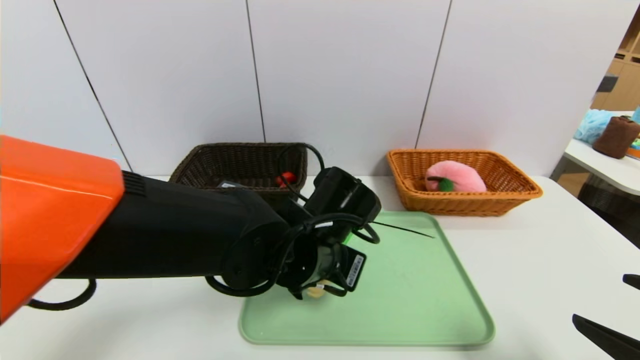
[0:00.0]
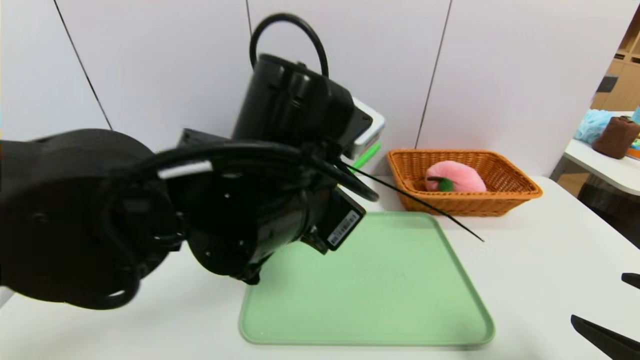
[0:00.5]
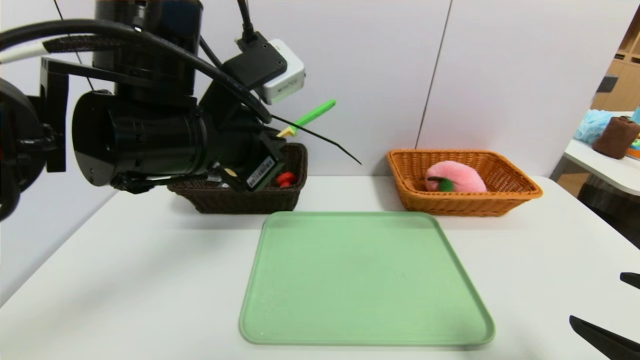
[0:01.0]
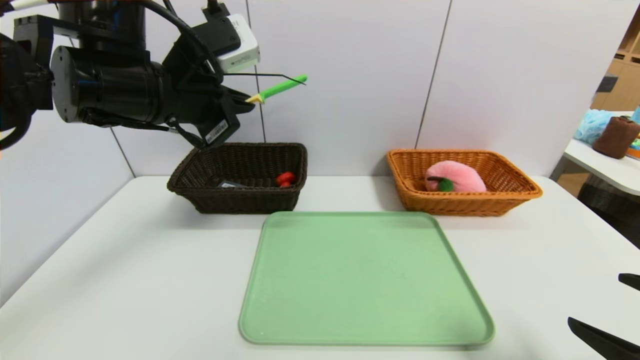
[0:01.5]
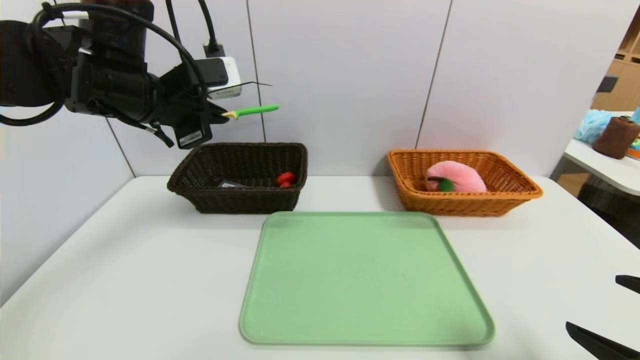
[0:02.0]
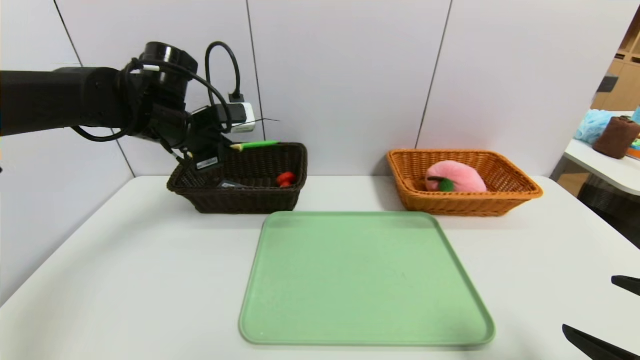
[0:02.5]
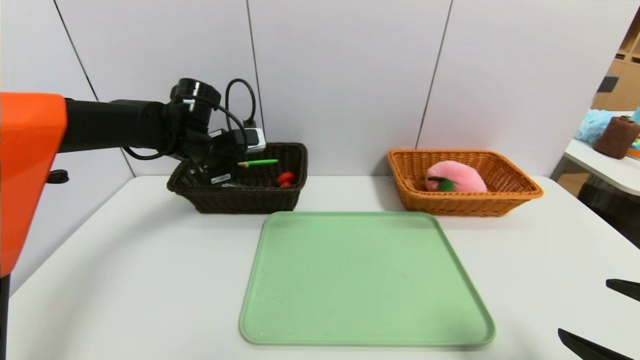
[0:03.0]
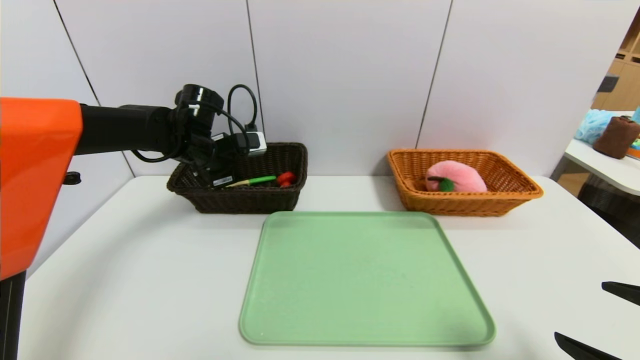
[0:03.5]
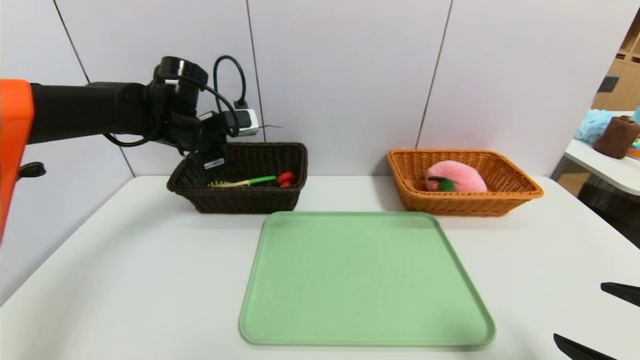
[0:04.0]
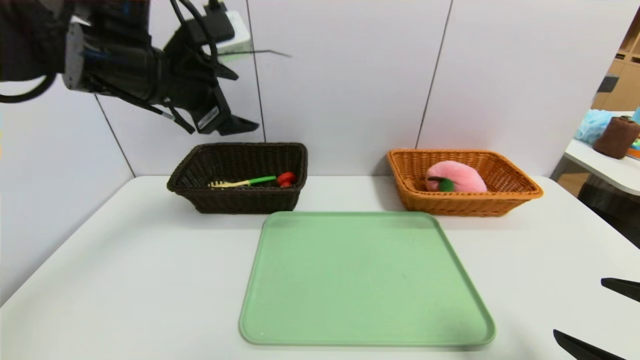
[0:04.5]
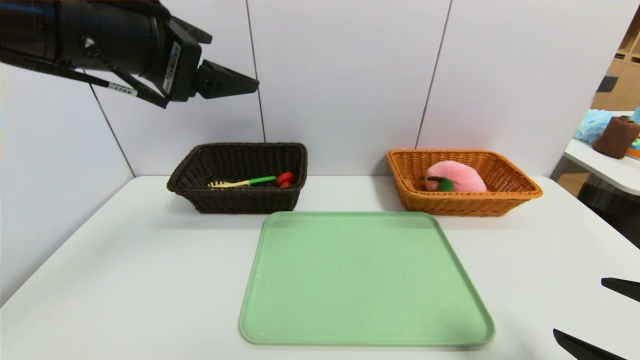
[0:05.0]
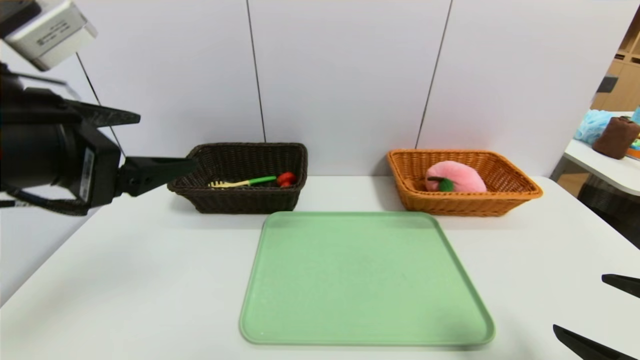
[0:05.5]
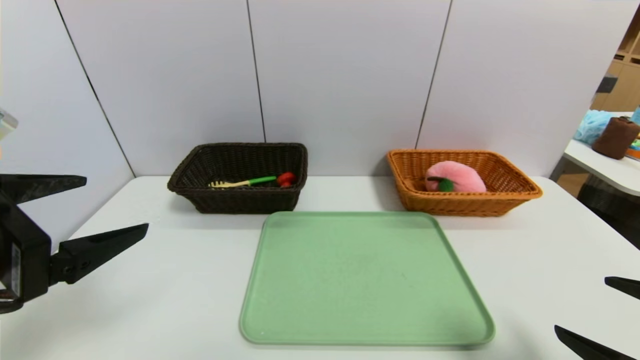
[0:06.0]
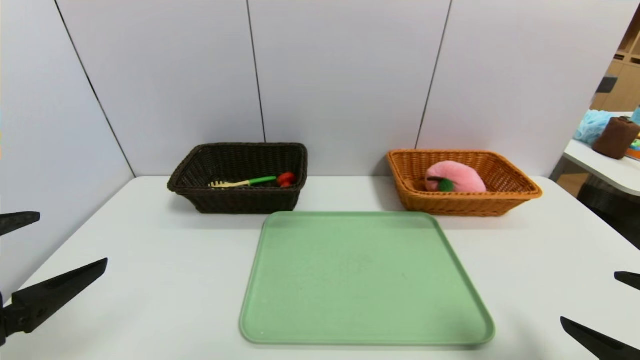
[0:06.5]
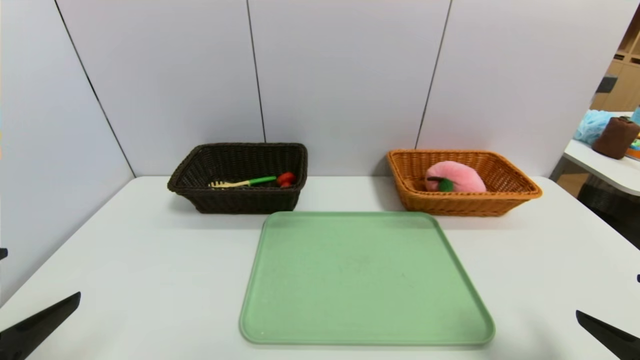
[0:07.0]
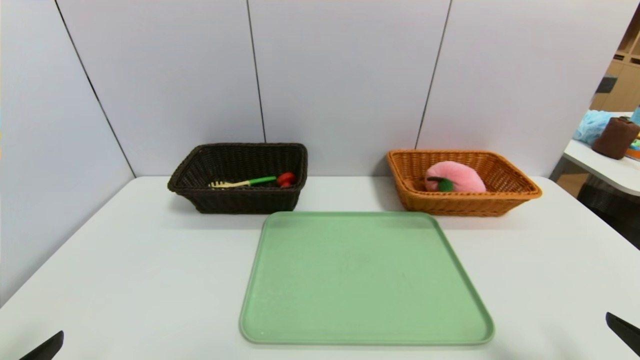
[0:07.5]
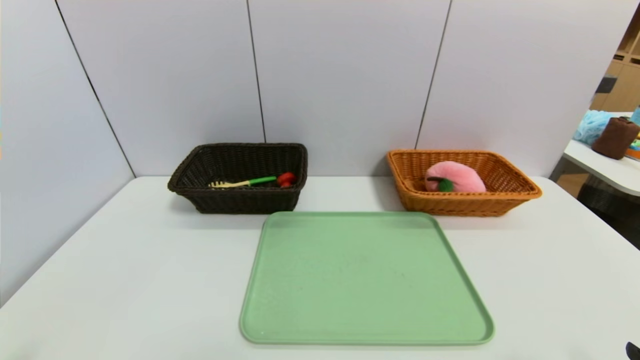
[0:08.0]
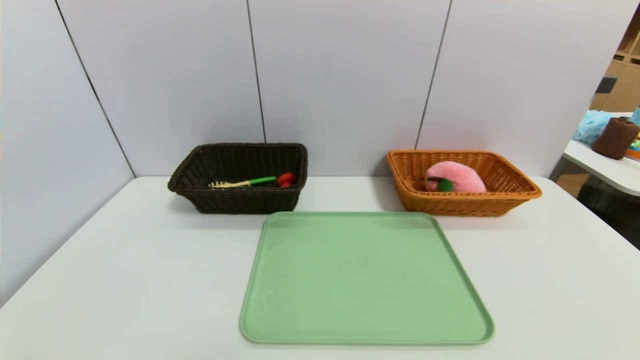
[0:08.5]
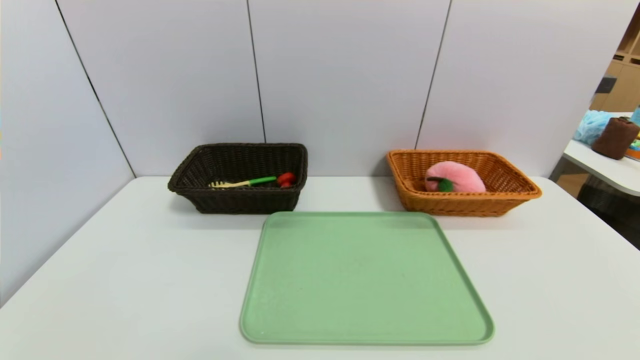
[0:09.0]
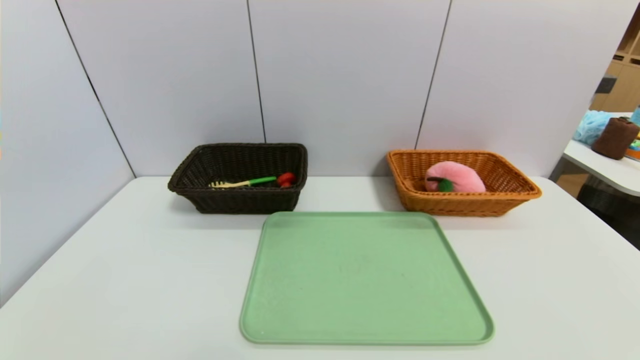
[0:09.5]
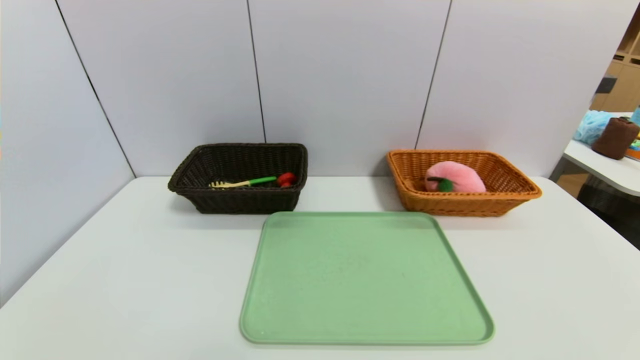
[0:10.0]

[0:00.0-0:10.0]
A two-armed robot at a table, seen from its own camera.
Task of the whole recording: place the food in the right basket with the right gripper, and place the non food items in the left basket with the left gripper.
Step, 0:00.0 to 0:04.0: Grasp the back scratcher and put it in the left basket.
0:00.0 to 0:02.0: The left gripper shifts approximately 25 cm to the left, upward and forward.
0:02.0 to 0:04.0: The left gripper heads forward and downward, covering approximately 10 cm, and opens up.
0:04.0 to 0:06.0: The left gripper travels backward by roughly 30 cm.
0:06.0 to 0:08.0: The left gripper goes approximately 15 cm downward and backward; the right gripper heads backward, covering roughly 5 cm.

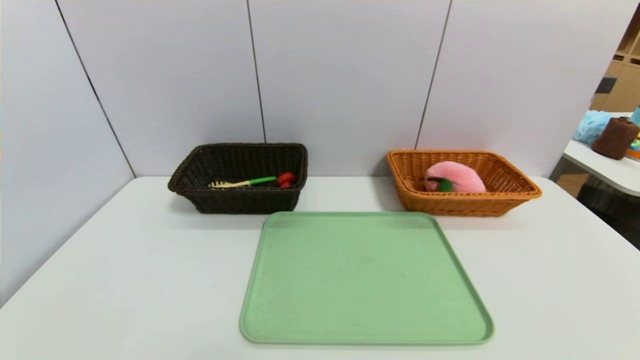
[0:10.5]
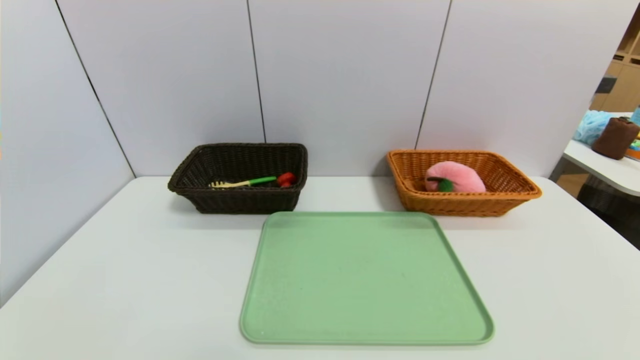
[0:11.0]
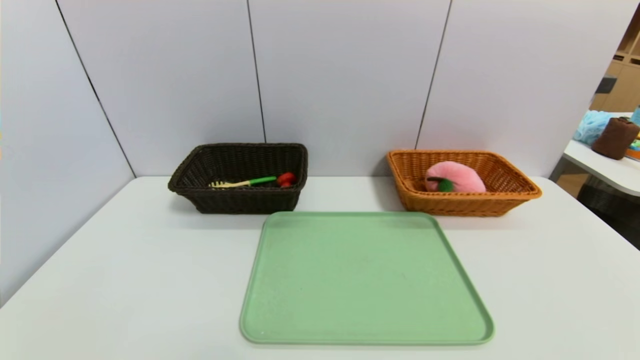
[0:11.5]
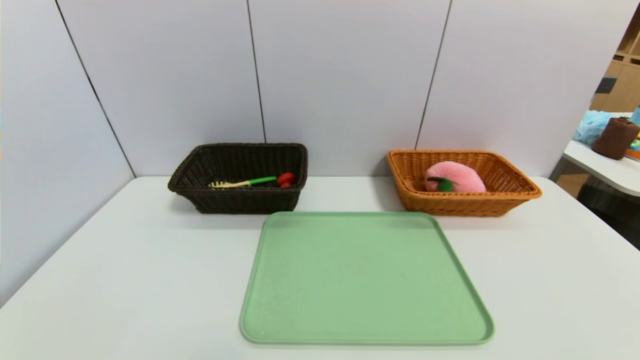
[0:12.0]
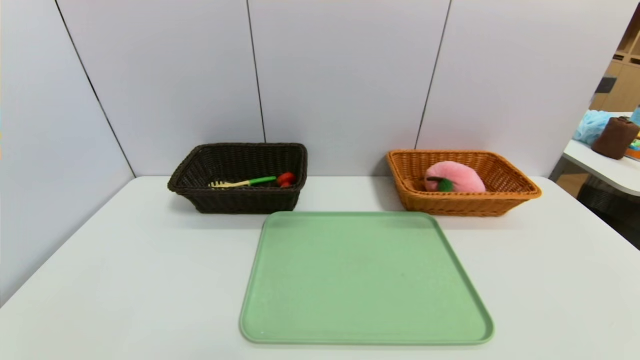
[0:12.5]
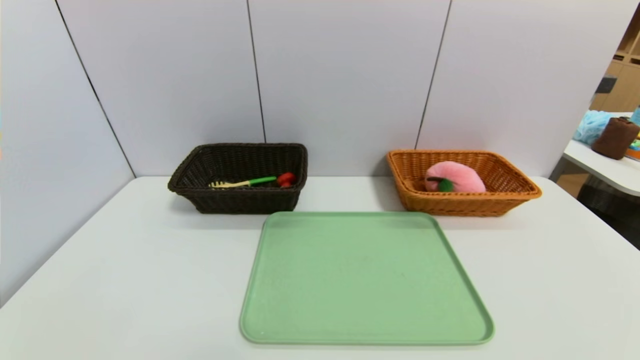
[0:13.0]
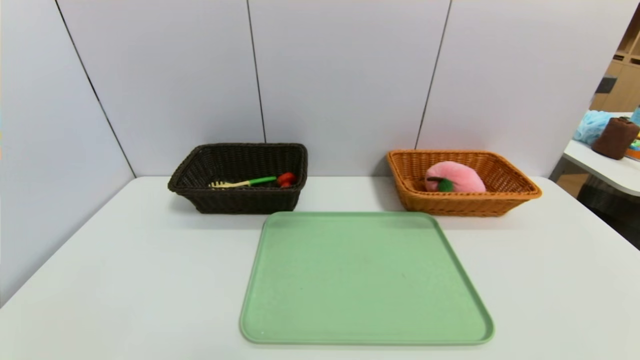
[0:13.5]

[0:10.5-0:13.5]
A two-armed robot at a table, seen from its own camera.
Task of the whole recording: place the food in the right basket with the right gripper, and place the non food items in the left basket with the left gripper.
0:12.0 to 0:13.5: Both grippers stay put.

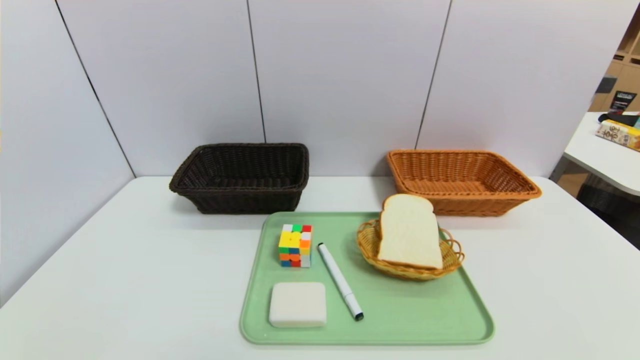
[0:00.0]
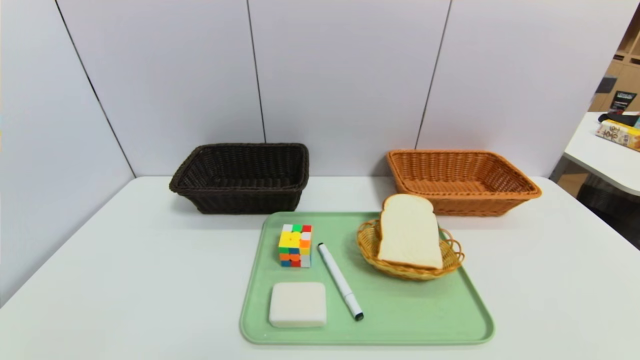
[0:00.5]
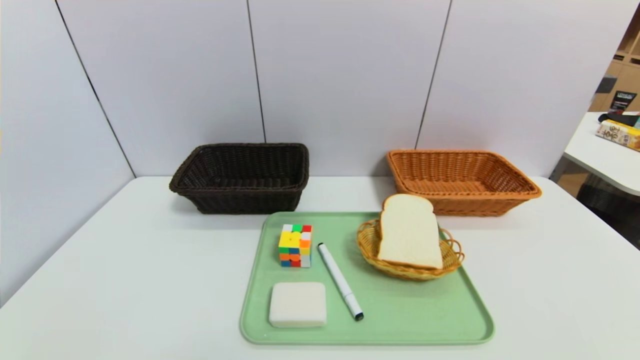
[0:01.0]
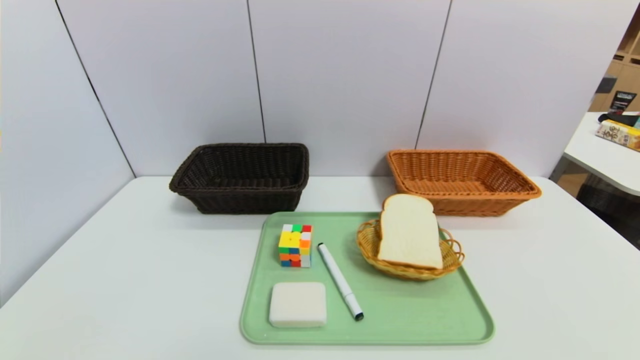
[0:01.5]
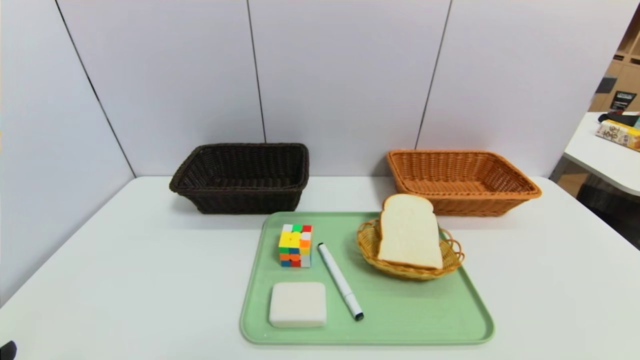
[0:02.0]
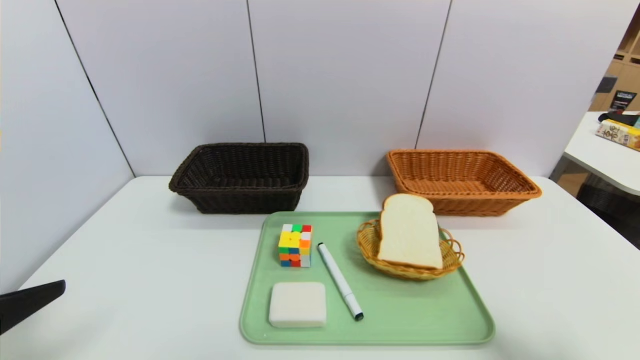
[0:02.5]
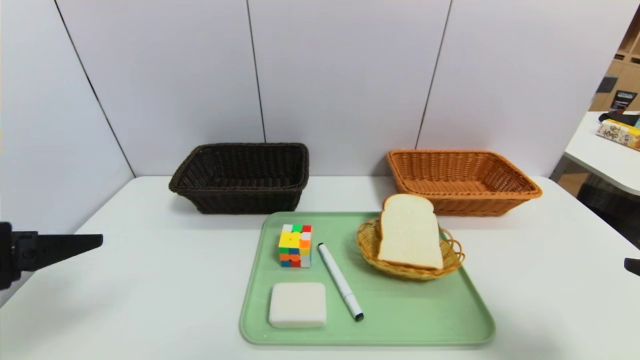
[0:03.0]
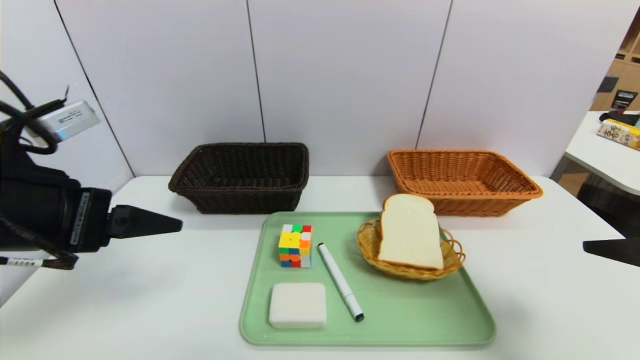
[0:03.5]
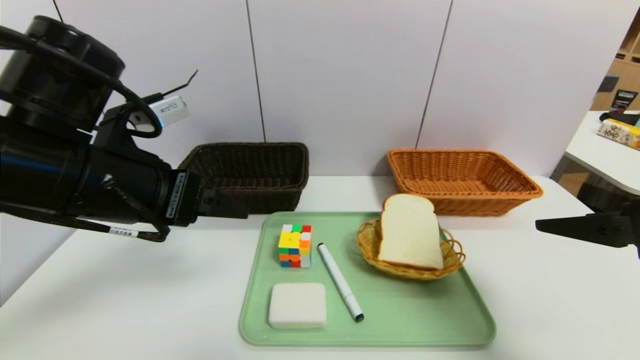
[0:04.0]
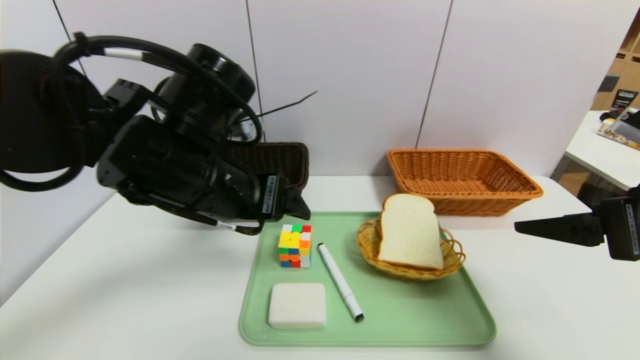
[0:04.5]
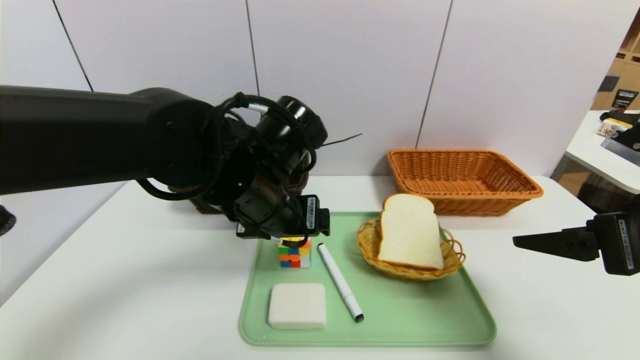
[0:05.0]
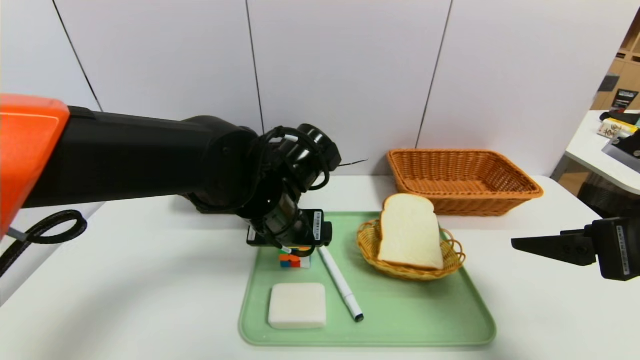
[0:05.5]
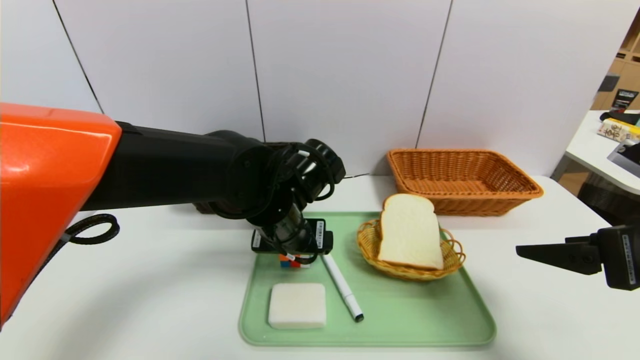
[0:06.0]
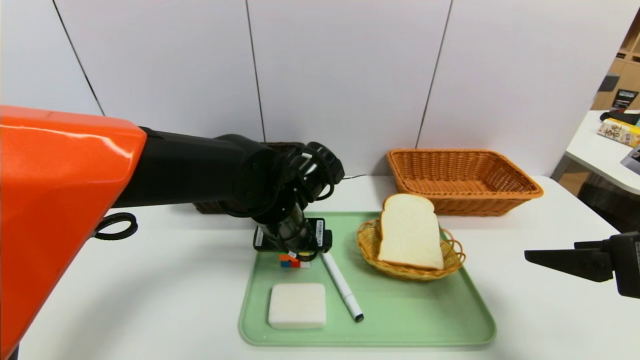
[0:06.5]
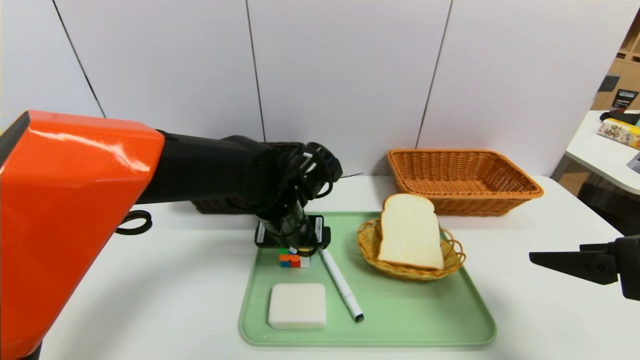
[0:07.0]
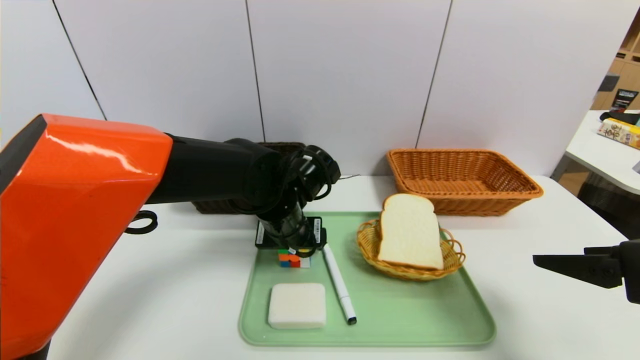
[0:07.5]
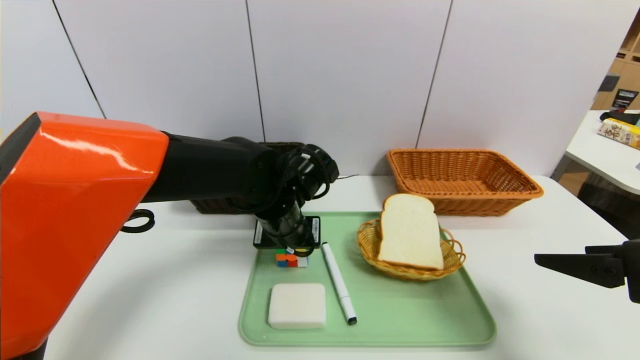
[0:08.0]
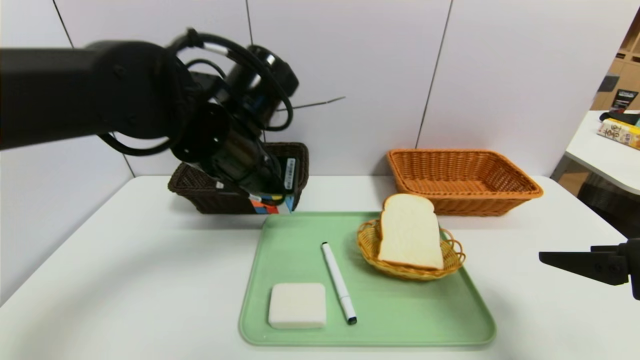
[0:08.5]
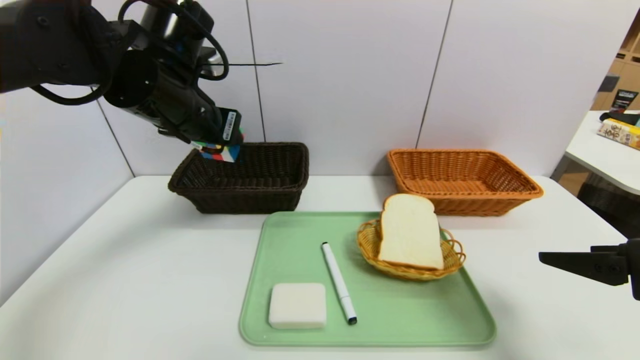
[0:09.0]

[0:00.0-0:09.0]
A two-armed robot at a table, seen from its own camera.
Task of the whole recording: place the food in the right basket with the right gripper, and place the non food items in the left basket with the left gripper.
0:02.0 to 0:04.5: The left gripper shifts about 30 cm forward and to the right; the right gripper travels forward and upward by roughly 20 cm.
0:04.5 to 0:07.0: The left gripper goes approximately 15 cm downward, forward and to the right.
0:07.0 to 0:09.0: The left gripper travels upward and to the left by roughly 20 cm, and closes.
